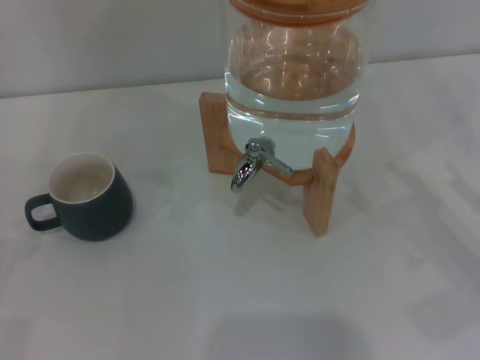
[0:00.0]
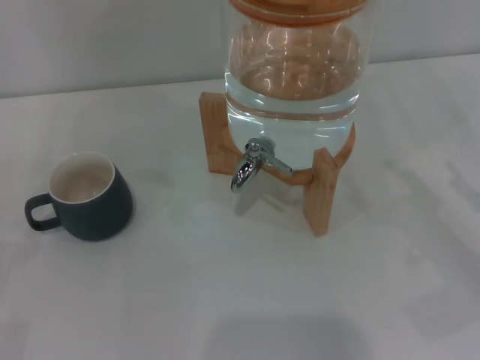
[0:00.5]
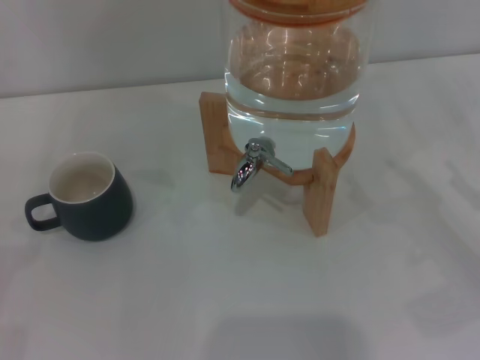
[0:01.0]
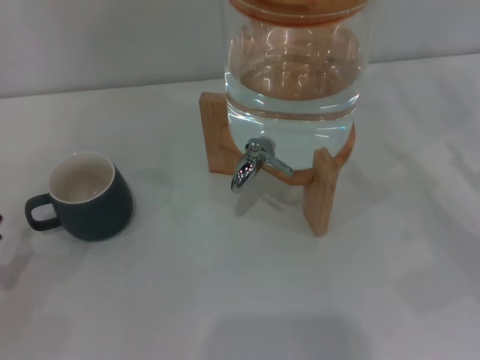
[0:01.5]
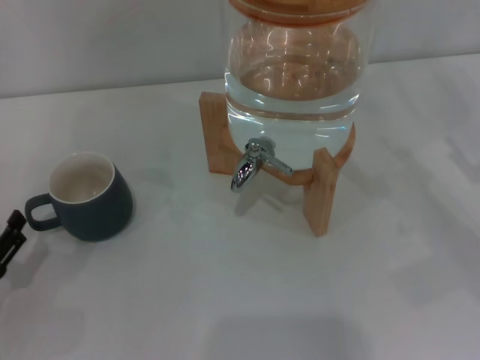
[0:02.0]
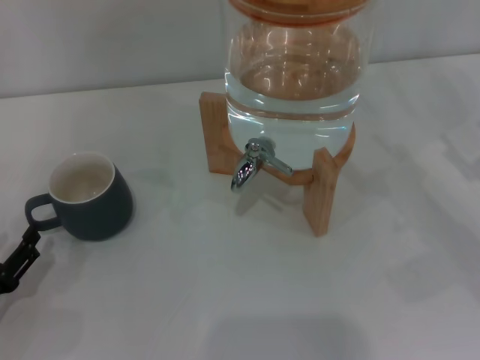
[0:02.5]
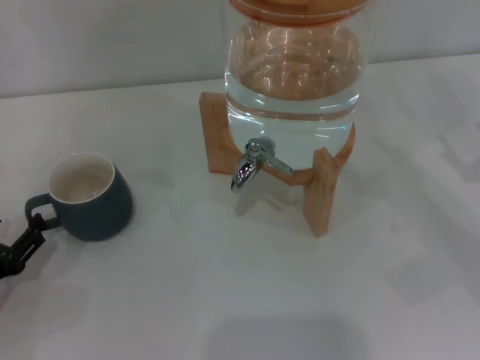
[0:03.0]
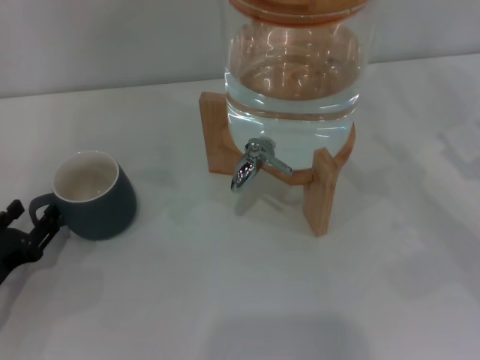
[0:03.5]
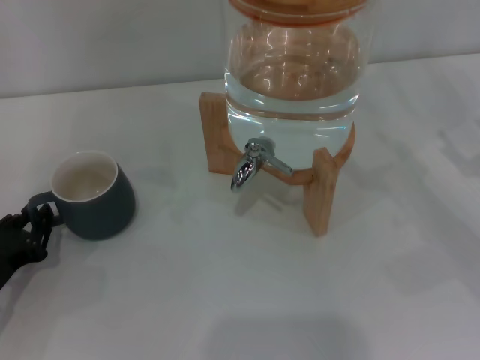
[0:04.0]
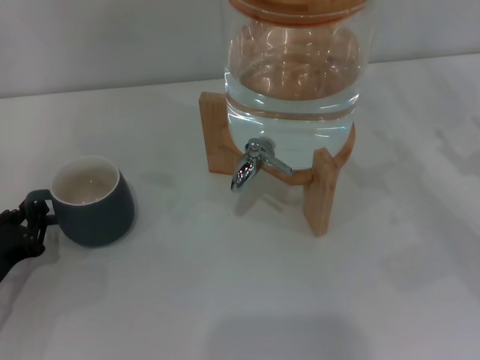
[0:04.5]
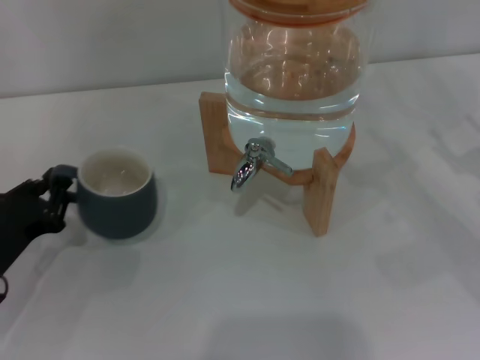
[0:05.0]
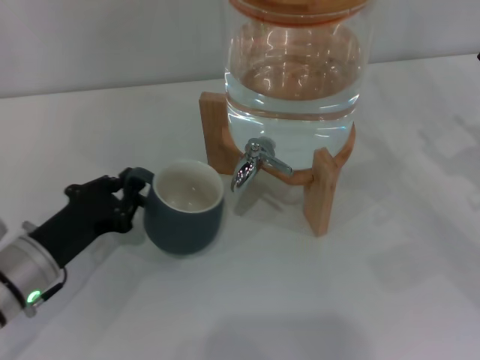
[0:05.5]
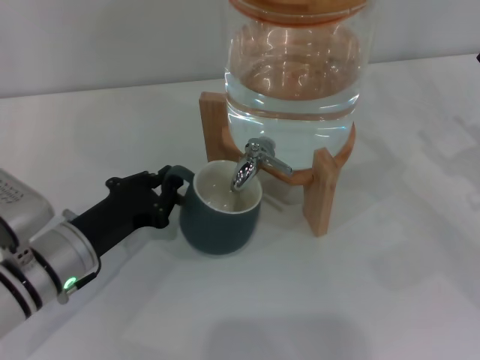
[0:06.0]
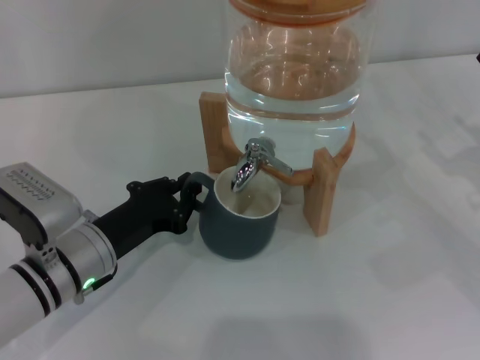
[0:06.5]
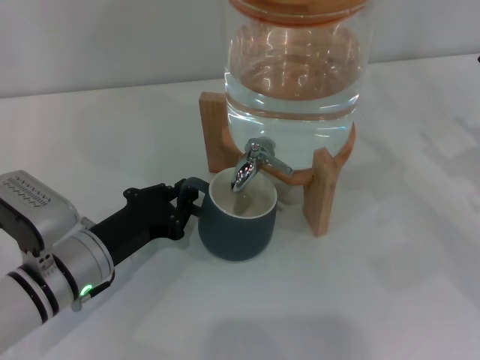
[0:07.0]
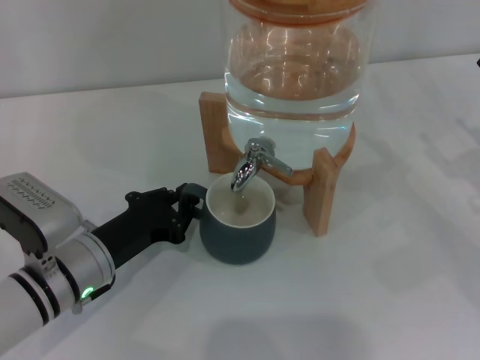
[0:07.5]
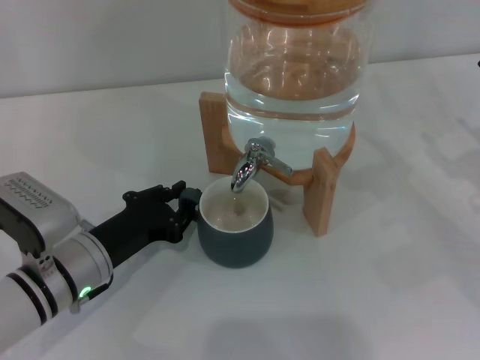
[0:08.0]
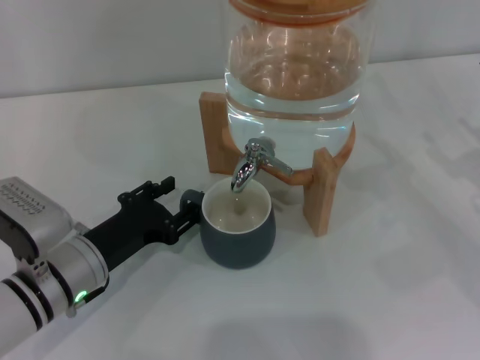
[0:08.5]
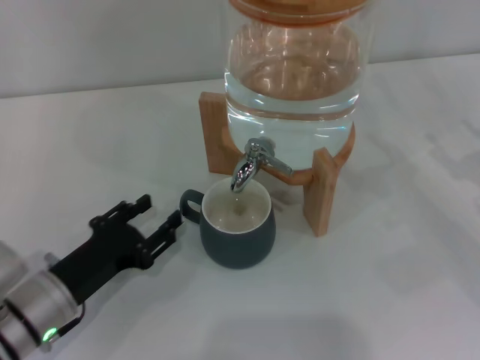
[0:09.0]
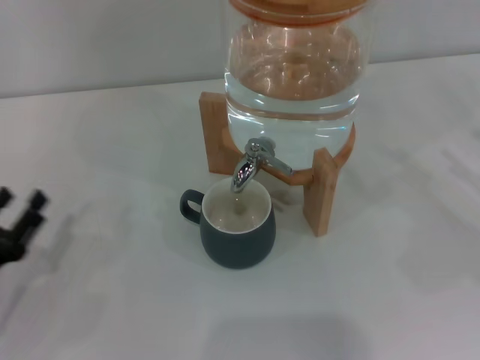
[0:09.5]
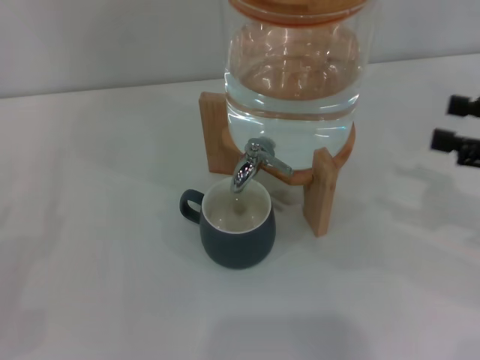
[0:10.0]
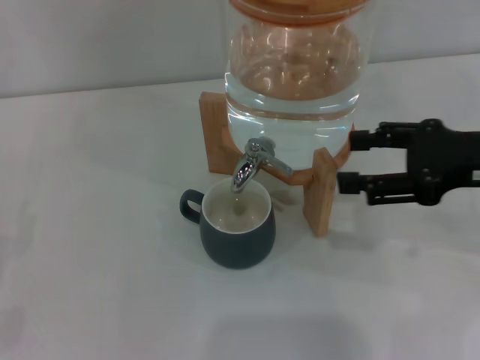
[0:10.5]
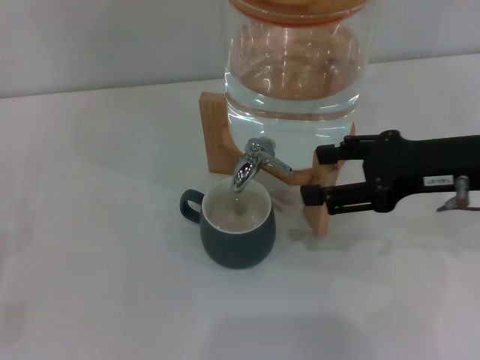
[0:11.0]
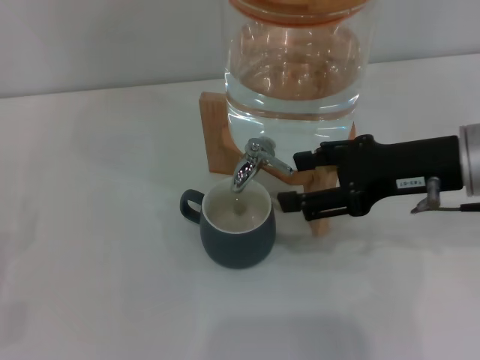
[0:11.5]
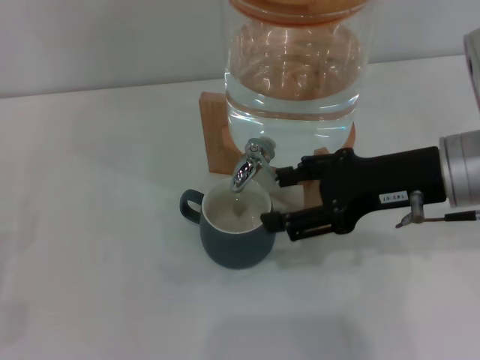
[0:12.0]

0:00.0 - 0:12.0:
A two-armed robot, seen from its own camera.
Task of the whole recording: the left gripper pick up the black cup and place it horizontally under the faucet, the right gripper turn on the faucet to fill the cup, and then turn off the faucet.
Step, 0:00.0 - 0:08.5: Move the cup beneath the water dispenser nozzle with the left gripper.
0:00.0 - 0:02.0: The left gripper heads to the right, covering about 5 cm.
0:02.0 - 0:04.0: The left gripper closes.
0:04.0 - 0:06.0: The left gripper moves to the right, some 10 cm, and closes.
0:06.0 - 0:08.0: The grippers move only a little.
0:08.0 - 0:10.0: The left gripper shifts about 20 cm to the left and backward, and opens its fingers. The right gripper heads upward, covering approximately 10 cm.
0:10.0 - 0:12.0: The right gripper heads to the left, covering roughly 15 cm.

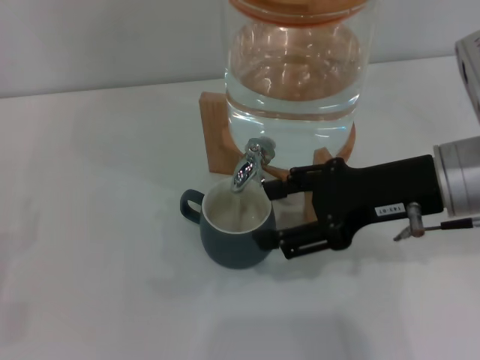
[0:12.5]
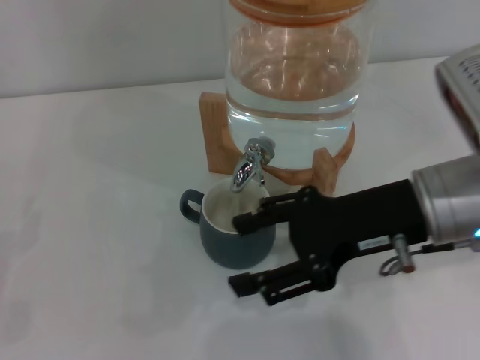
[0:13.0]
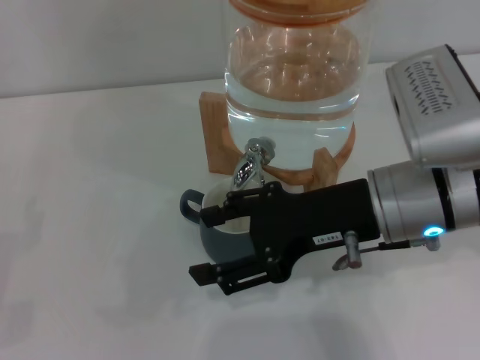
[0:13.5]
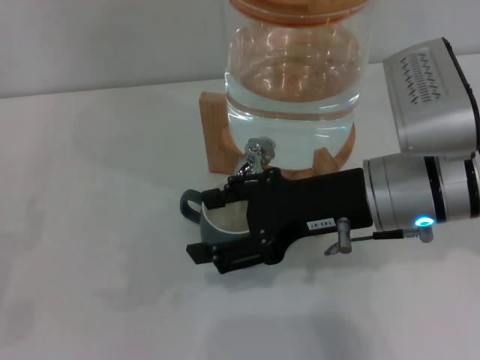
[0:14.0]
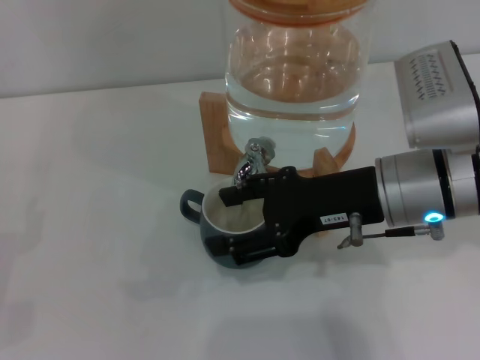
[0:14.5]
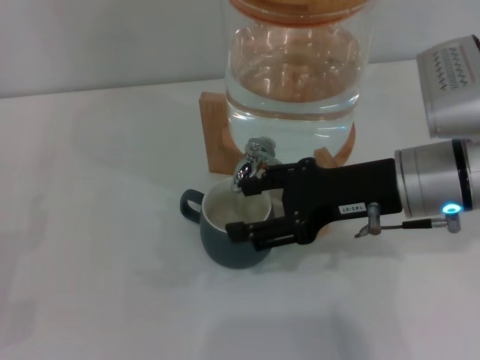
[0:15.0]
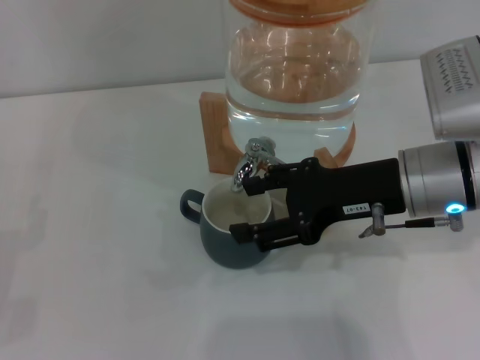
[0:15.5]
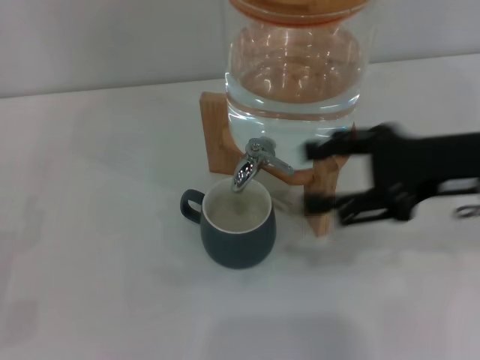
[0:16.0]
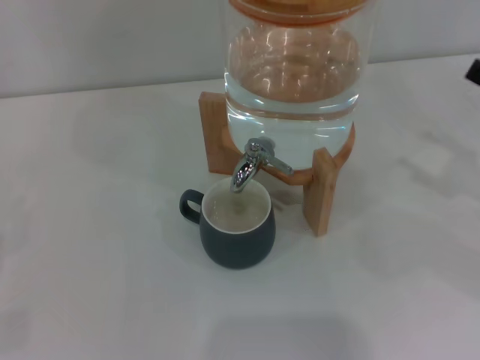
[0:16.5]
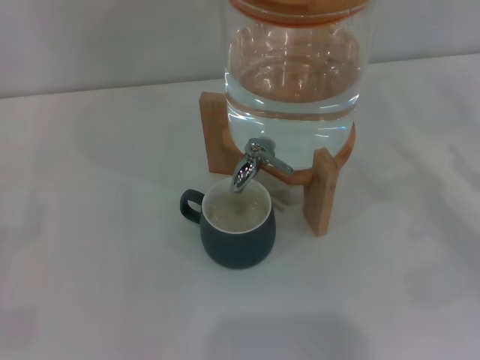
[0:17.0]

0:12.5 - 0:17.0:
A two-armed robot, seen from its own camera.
Task of the whole recording: the left gripper pick up the black cup and place it horizontally under the faucet, the right gripper turn on the faucet to fill the cup, and then turn off the faucet.
Step, 0:13.0 - 0:15.5: Close the dispenser valve with the right gripper.
0:12.5 - 0:14.5: The grippers stay close to where they were, moving slightly.
0:14.5 - 0:17.0: The right gripper travels to the right and downward by roughly 25 cm.

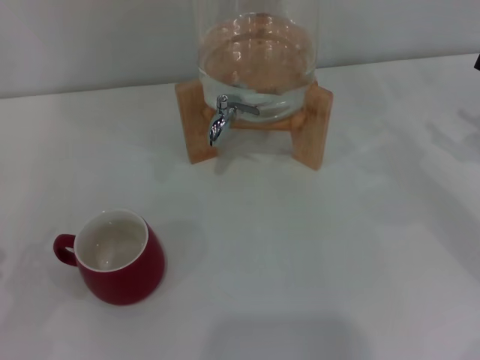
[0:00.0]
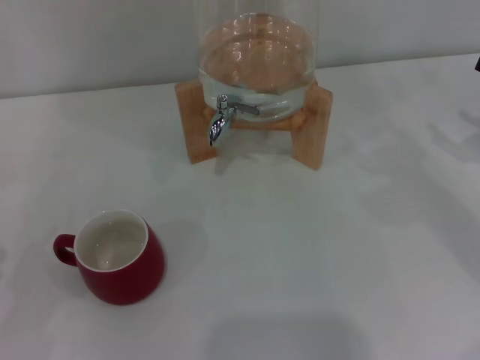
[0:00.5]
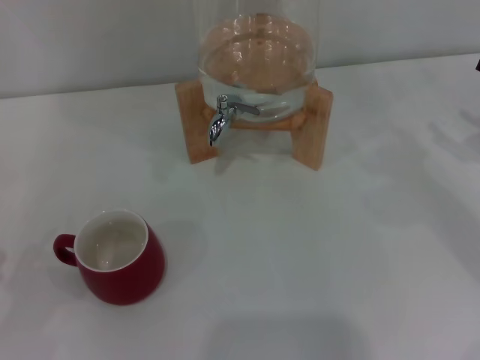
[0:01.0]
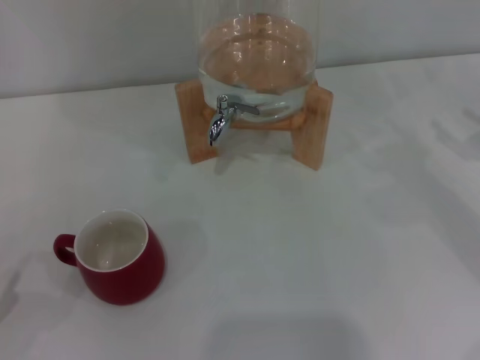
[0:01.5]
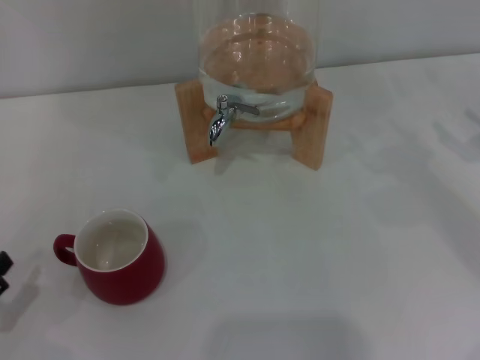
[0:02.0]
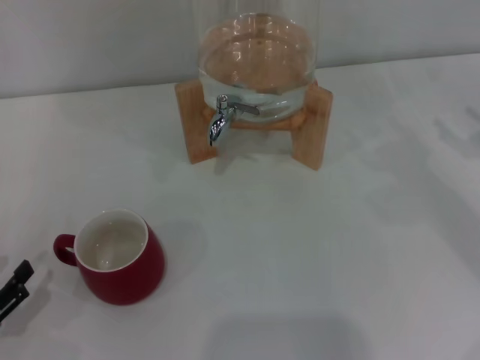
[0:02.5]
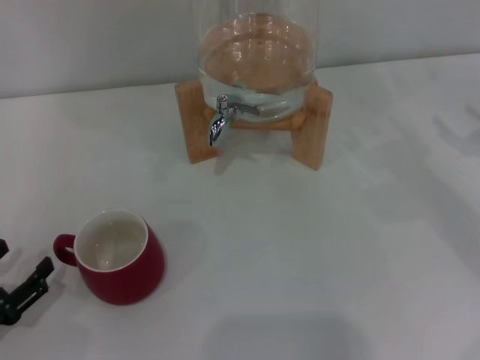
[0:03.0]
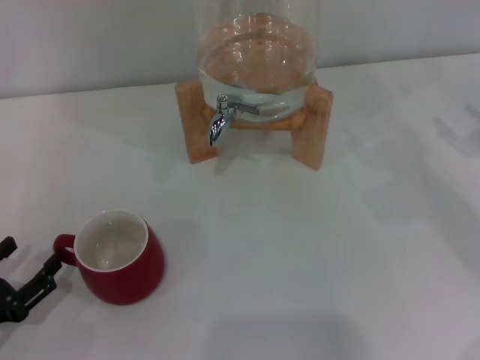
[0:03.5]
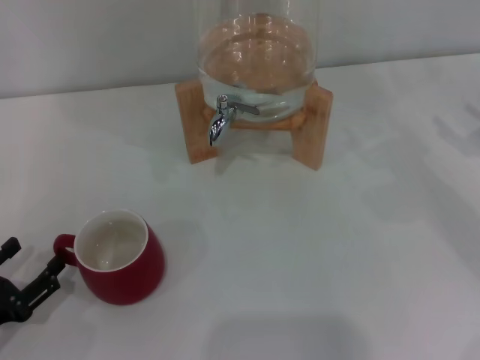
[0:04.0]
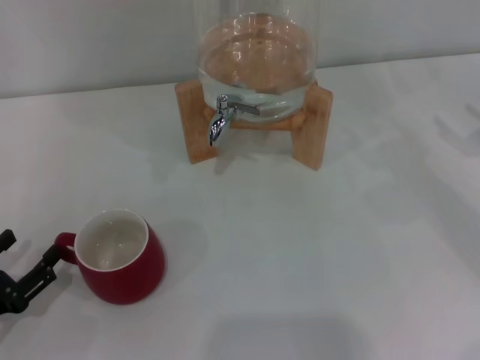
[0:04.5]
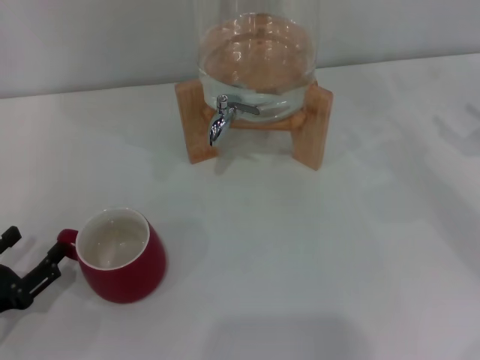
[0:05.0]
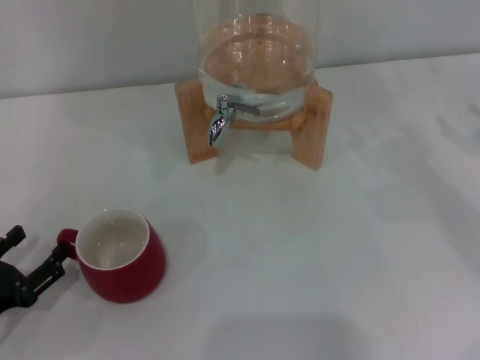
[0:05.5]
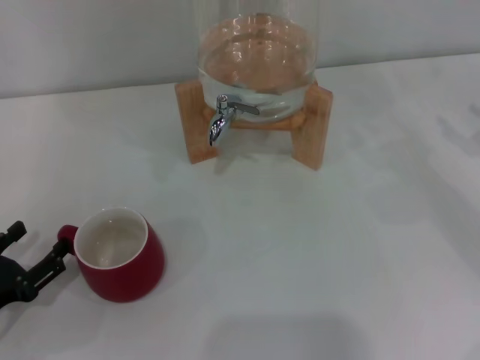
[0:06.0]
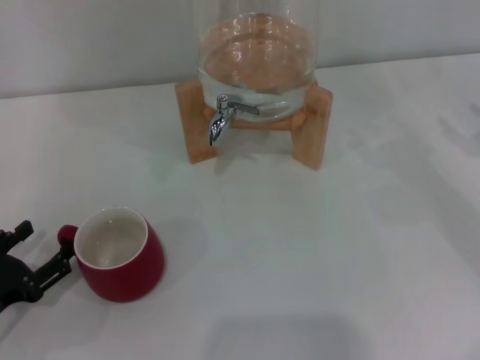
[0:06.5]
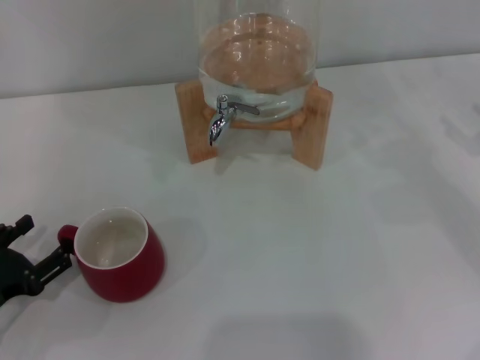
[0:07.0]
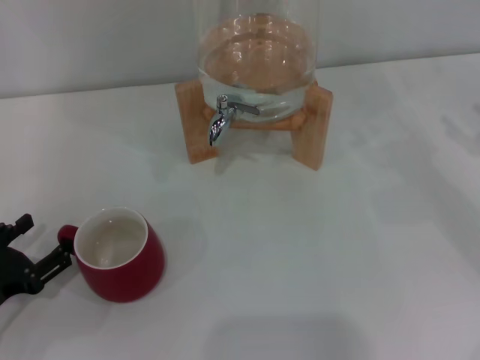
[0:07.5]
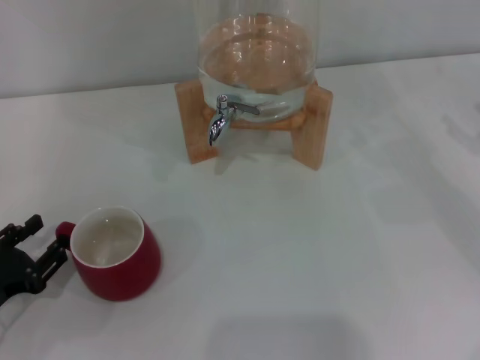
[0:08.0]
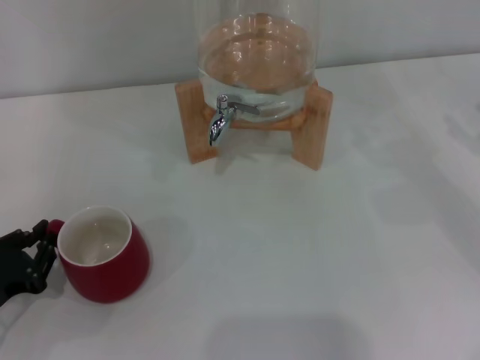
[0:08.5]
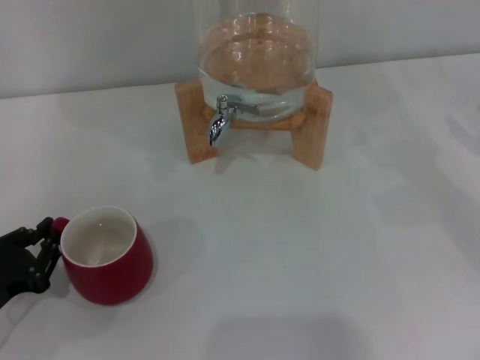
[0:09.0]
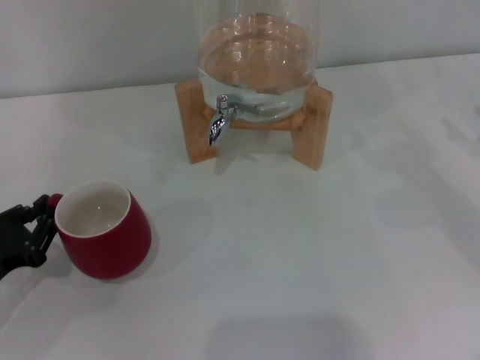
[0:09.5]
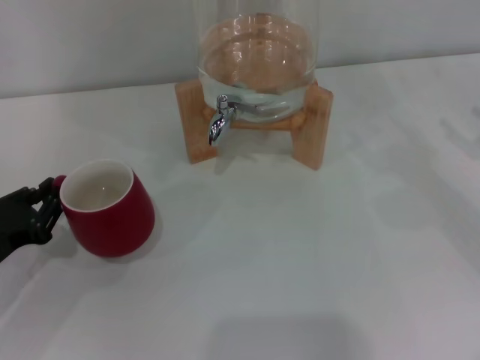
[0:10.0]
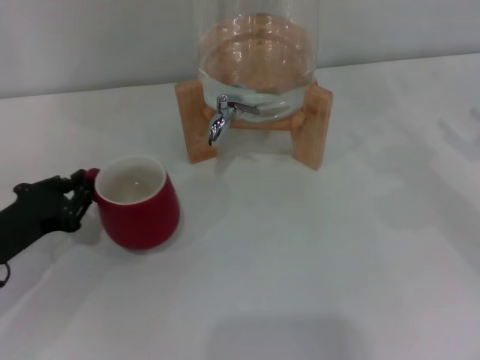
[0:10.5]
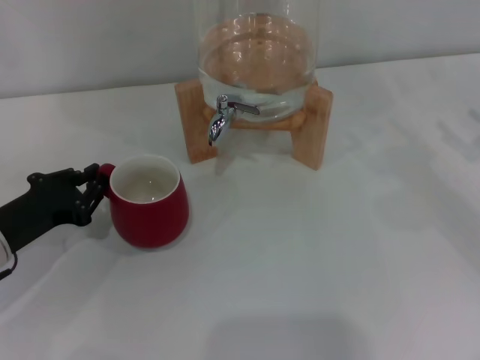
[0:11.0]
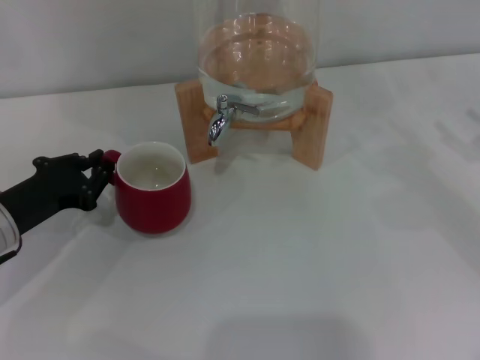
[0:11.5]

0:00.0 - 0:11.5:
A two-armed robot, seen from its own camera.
Task of the whole recording: the left gripper pick up the red cup and place it horizontally under the faucet, the right gripper turn on the faucet to fill the cup, and then turn off the faucet.
0:00.0 - 0:02.0: The left gripper goes about 5 cm downward.
0:02.0 - 0:06.0: The grippers stay close to where they were, moving slightly.
0:06.0 - 0:07.5: Both grippers stay about where they are.
0:07.5 - 0:09.5: The left gripper closes its fingers.
0:09.5 - 0:11.5: The left gripper shifts approximately 10 cm forward.
